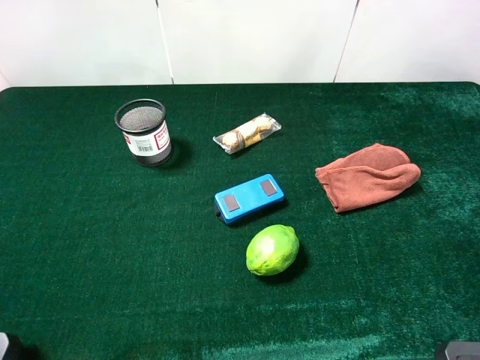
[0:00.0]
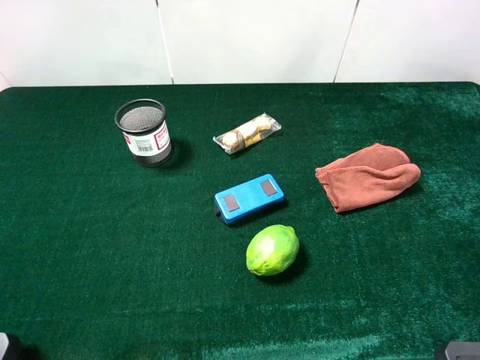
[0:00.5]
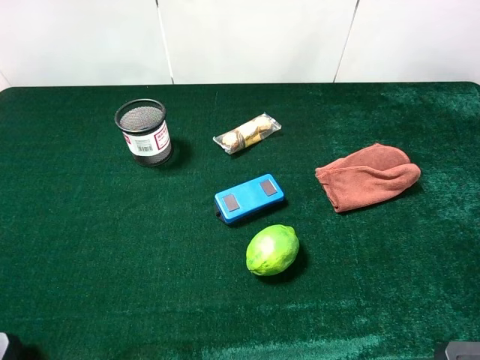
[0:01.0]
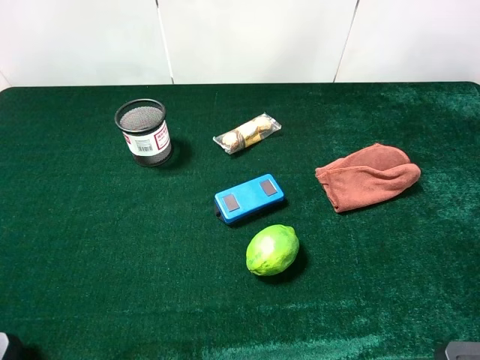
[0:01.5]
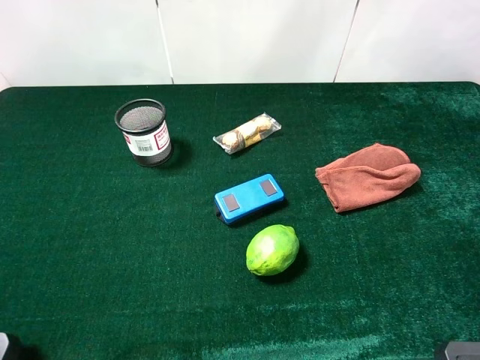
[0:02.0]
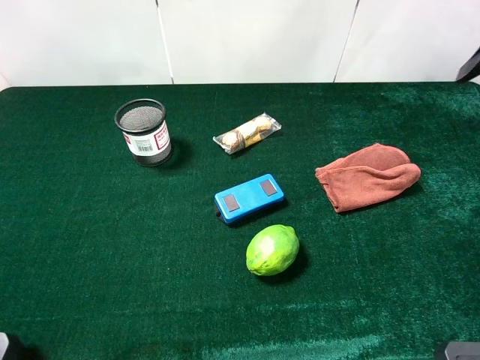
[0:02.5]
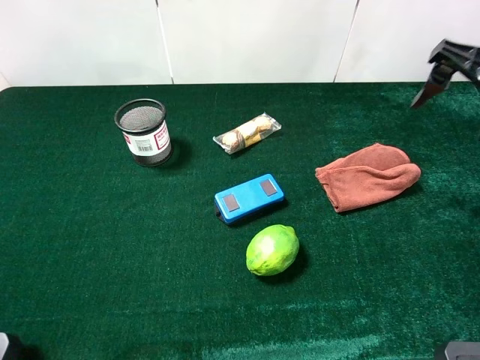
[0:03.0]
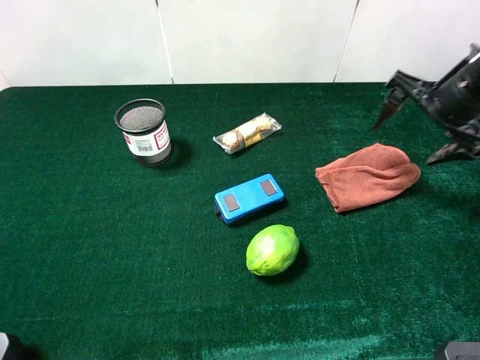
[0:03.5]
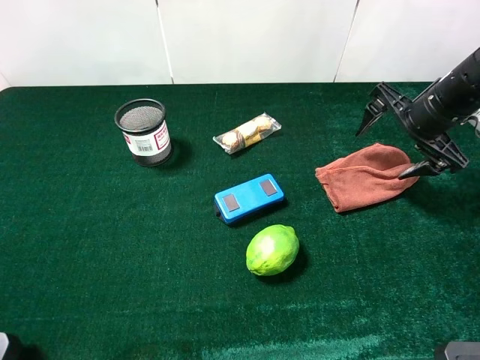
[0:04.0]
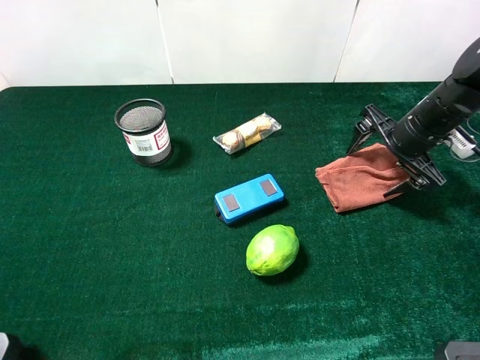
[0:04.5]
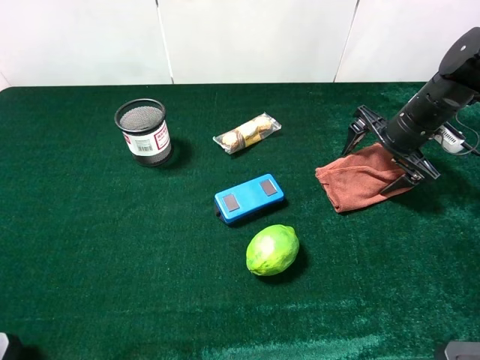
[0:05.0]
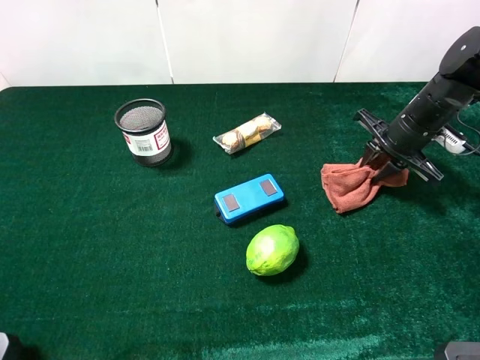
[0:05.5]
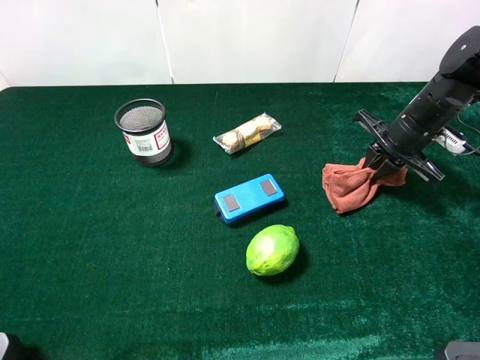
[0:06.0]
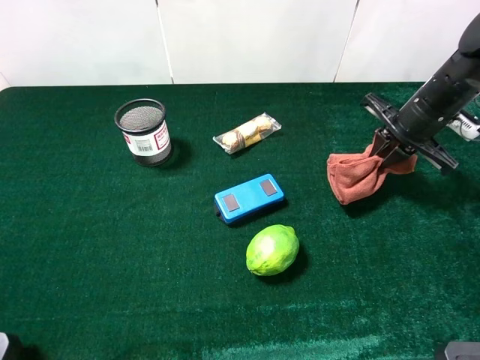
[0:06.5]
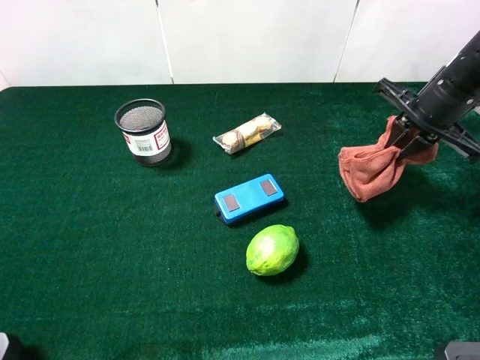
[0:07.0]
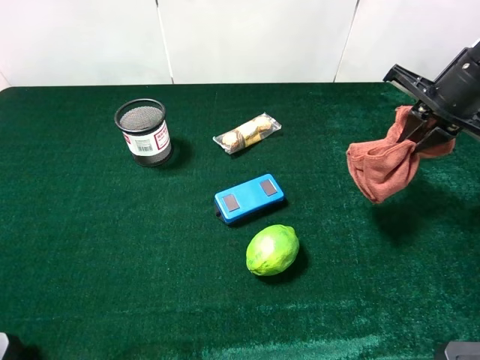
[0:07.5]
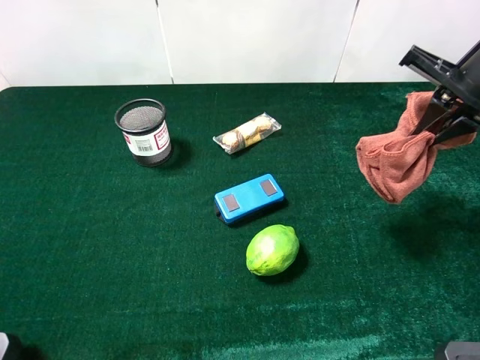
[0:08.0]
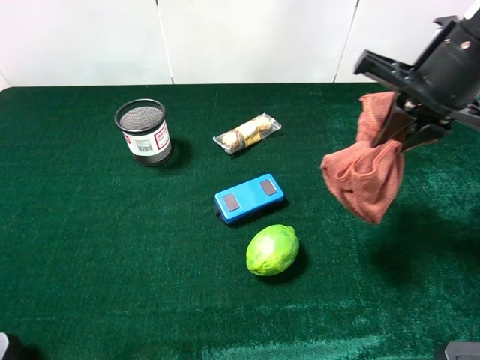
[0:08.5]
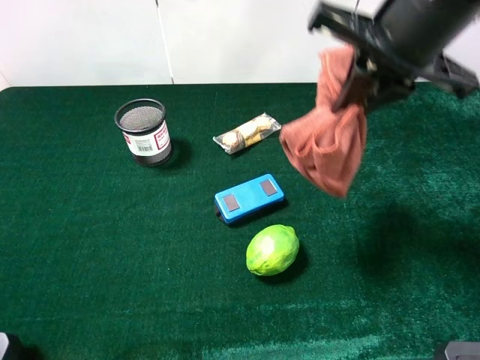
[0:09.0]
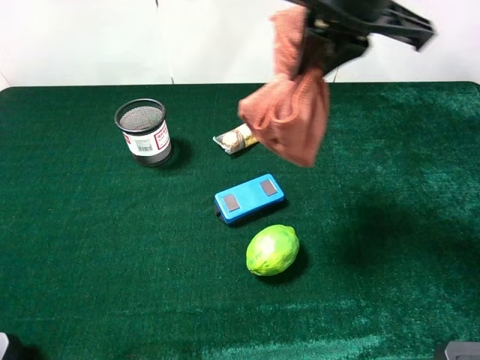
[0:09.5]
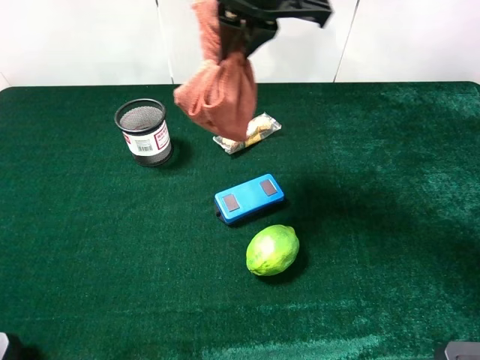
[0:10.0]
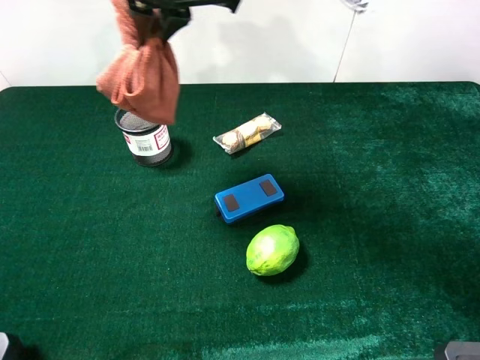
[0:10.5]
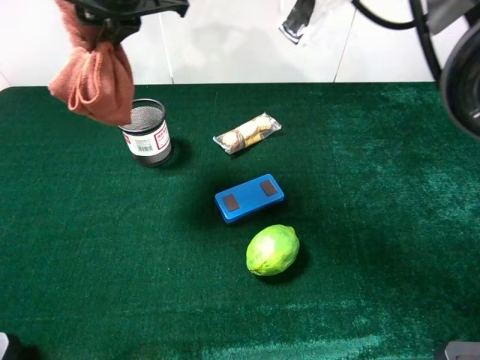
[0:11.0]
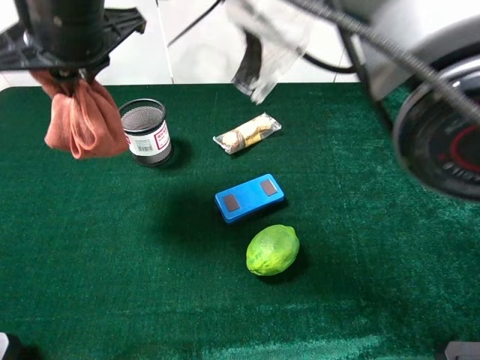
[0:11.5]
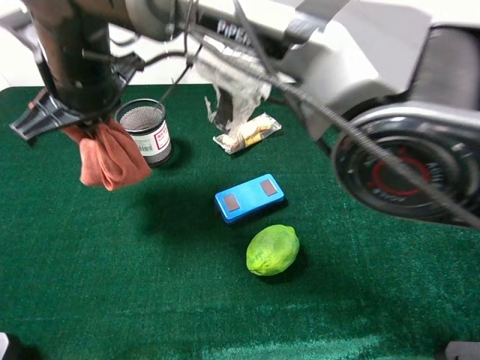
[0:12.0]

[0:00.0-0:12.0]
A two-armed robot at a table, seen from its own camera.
Task of the whole recording: the gripper move the object.
Step, 0:00.0 to 0:05.5: Grasp the brown towel with the right gripper.
0:02.0 to 0:04.0: The right gripper shifts about 25 cm downward and forward.
0:04.0 to 0:06.0: The right gripper is displaced downward by some 5 cm, and closes up.
0:06.0 to 0:08.0: The right gripper moves upward and backward, roughly 15 cm.
0:08.0 to 0:10.0: The right gripper heads to the left, covering about 25 cm.
0:10.0 to 0:12.0: The right gripper moves to the left and downward, approximately 20 cm.

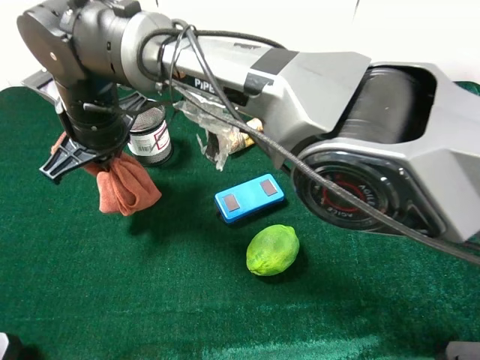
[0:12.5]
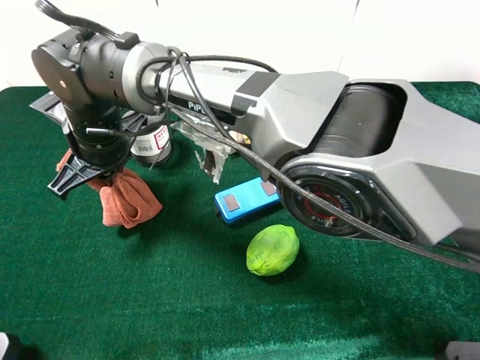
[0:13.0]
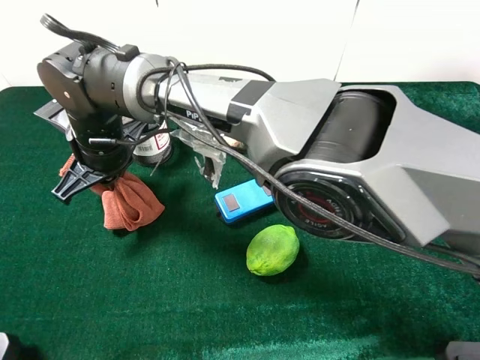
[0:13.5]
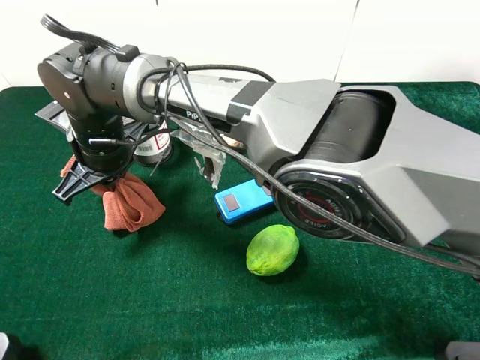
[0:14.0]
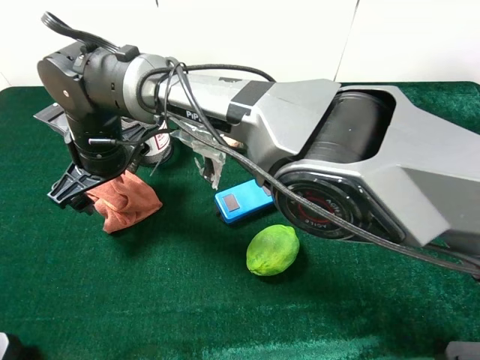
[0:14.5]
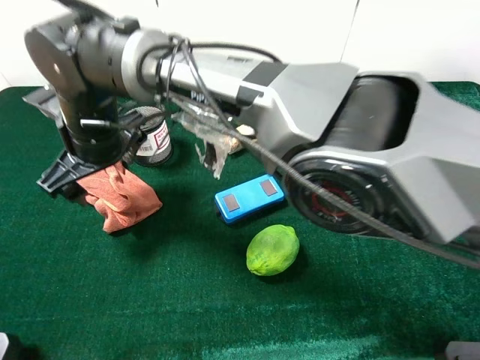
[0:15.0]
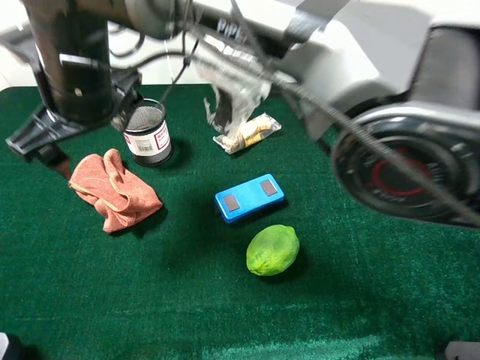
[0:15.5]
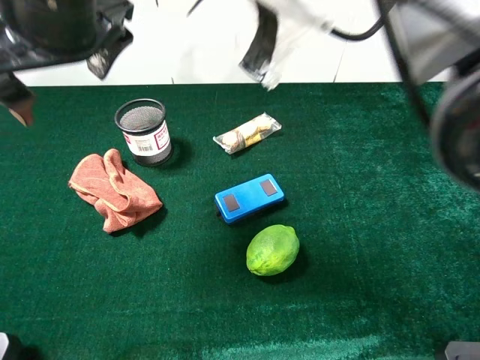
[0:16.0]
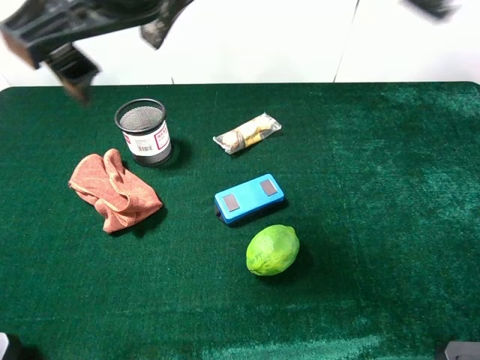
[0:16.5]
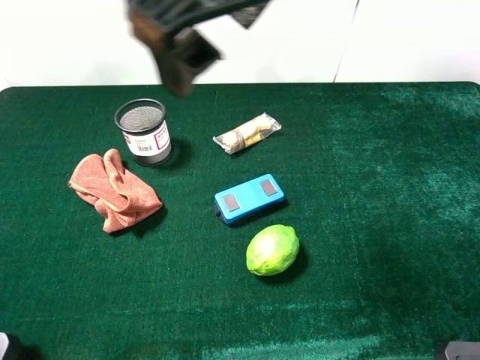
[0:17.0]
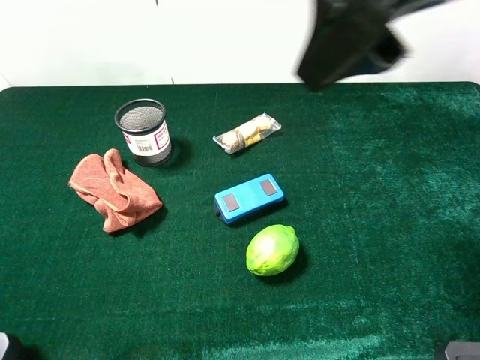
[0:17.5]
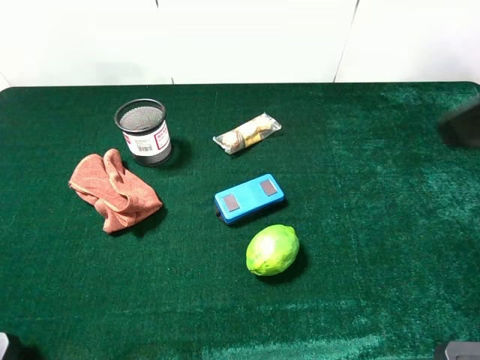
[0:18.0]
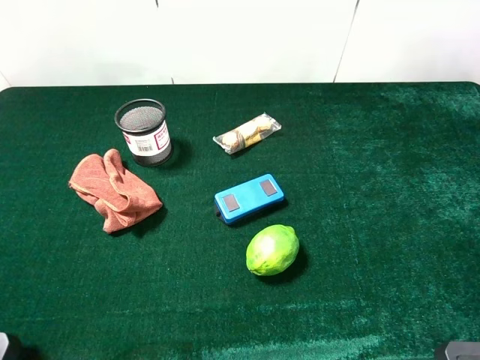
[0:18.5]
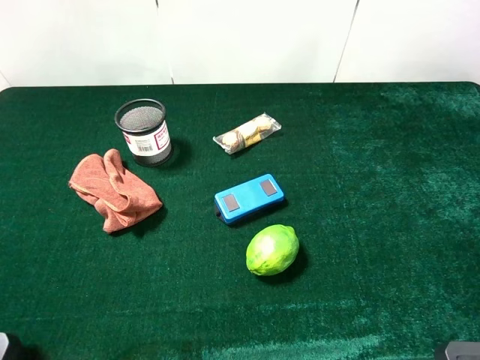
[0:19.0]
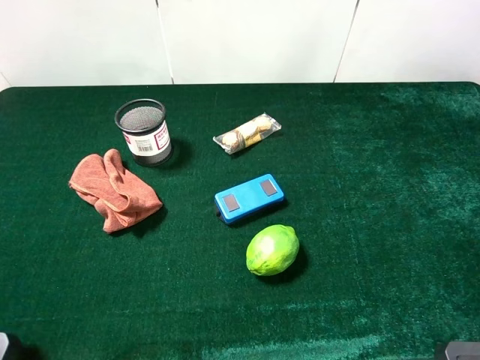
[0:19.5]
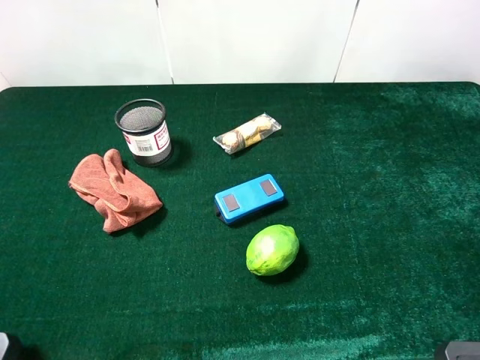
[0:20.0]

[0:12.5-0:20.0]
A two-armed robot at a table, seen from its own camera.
Task of the whole recording: the gripper move the object.
Step, 0:12.5 to 0:15.0: Place the brown towel on the table with the right gripper.
0:12.5 to 0:14.5: The right gripper opens up.
0:14.5 to 0:16.5: The right gripper travels upward and to the right by approximately 25 cm.
0:16.5 to 0:18.0: The right gripper goes about 30 cm to the right.
0:18.0 to 0:20.0: The right gripper is displaced backward, downward and to the right by about 15 cm.
